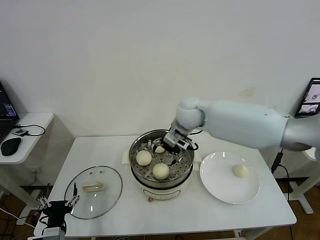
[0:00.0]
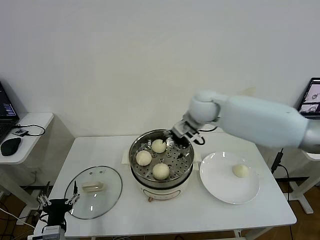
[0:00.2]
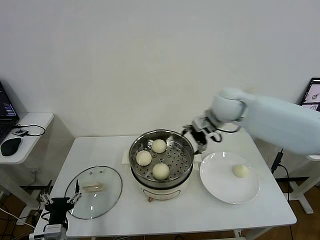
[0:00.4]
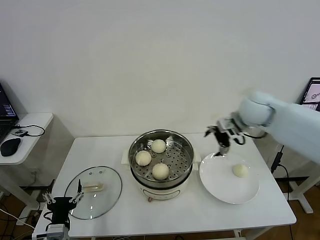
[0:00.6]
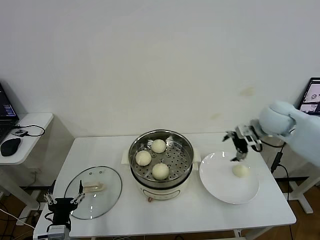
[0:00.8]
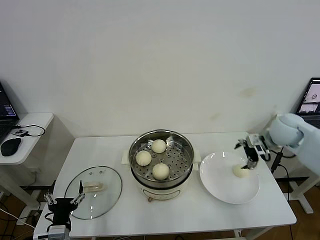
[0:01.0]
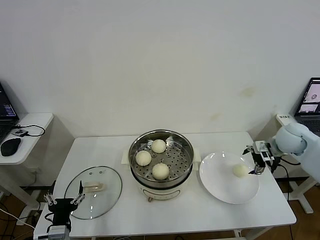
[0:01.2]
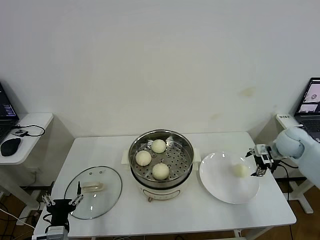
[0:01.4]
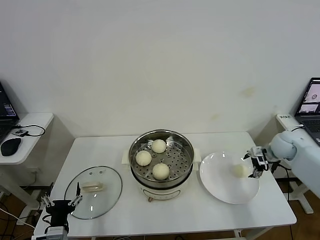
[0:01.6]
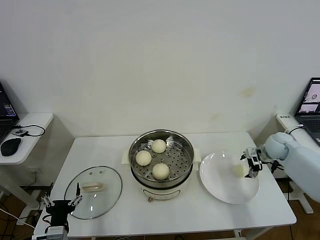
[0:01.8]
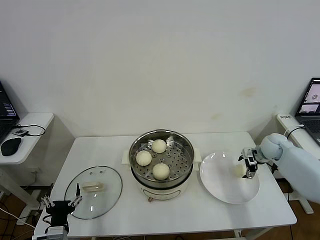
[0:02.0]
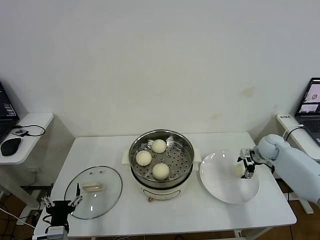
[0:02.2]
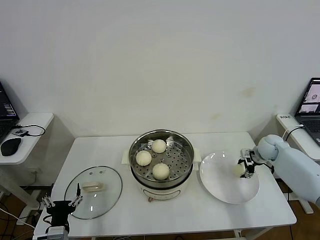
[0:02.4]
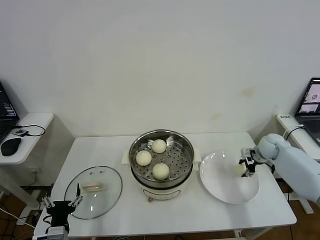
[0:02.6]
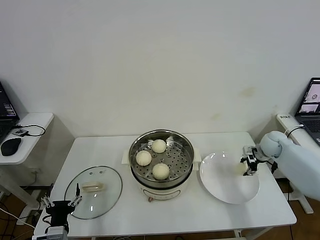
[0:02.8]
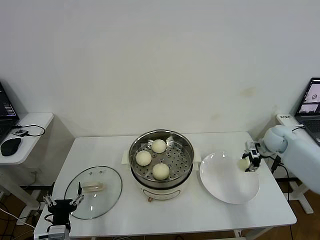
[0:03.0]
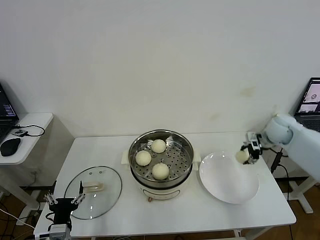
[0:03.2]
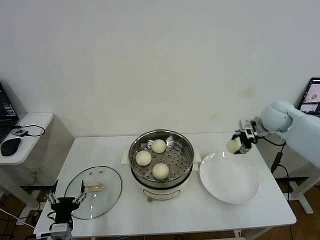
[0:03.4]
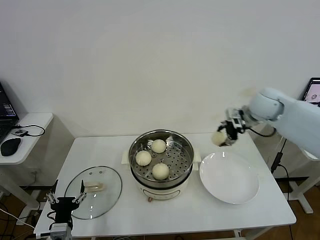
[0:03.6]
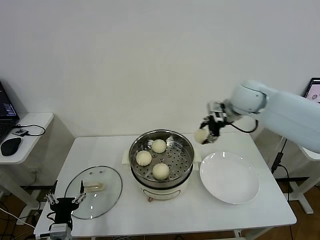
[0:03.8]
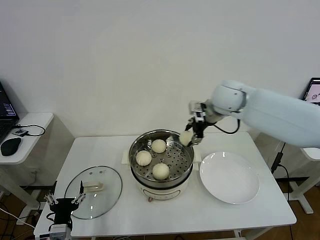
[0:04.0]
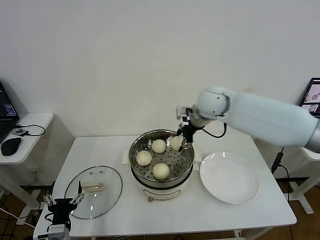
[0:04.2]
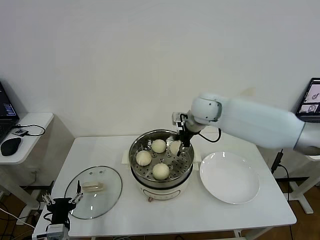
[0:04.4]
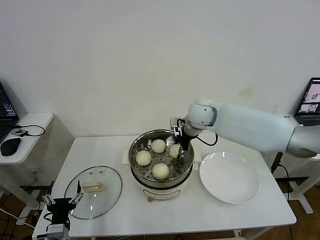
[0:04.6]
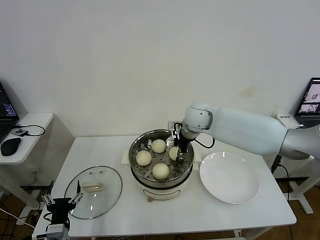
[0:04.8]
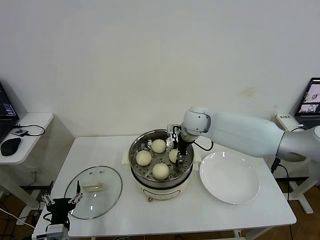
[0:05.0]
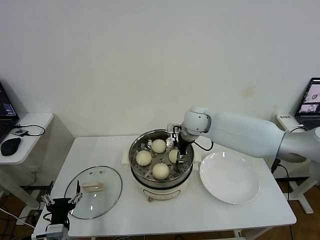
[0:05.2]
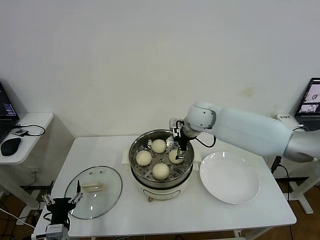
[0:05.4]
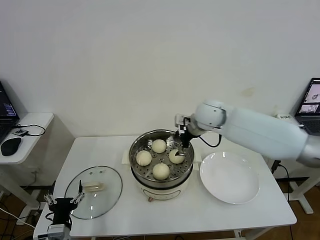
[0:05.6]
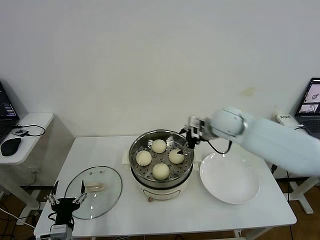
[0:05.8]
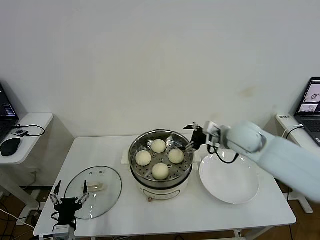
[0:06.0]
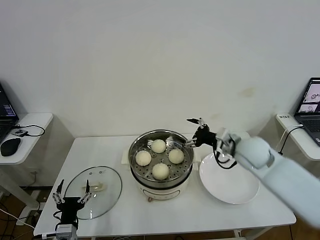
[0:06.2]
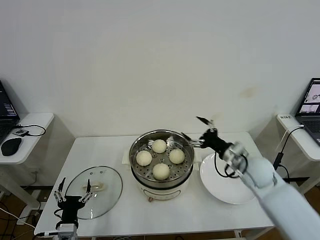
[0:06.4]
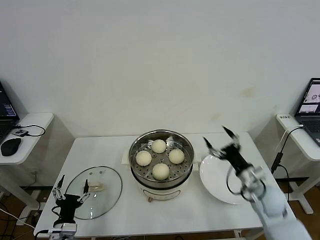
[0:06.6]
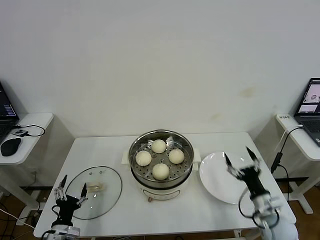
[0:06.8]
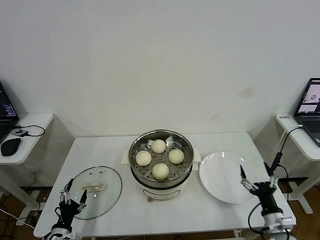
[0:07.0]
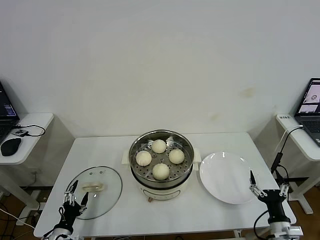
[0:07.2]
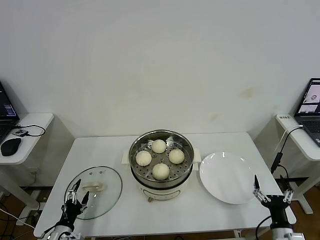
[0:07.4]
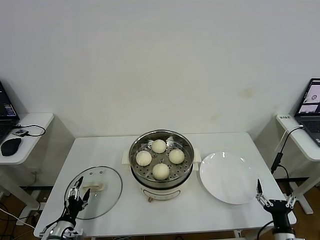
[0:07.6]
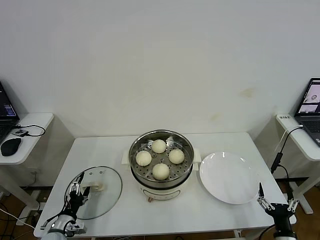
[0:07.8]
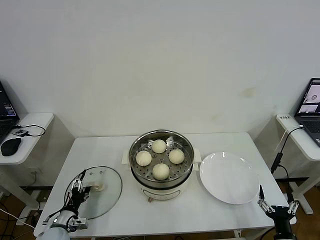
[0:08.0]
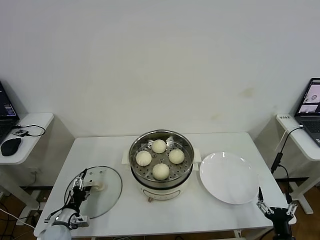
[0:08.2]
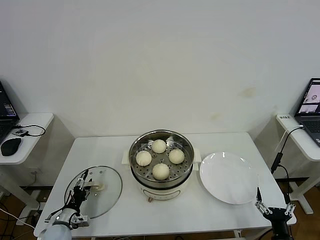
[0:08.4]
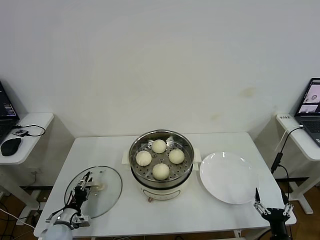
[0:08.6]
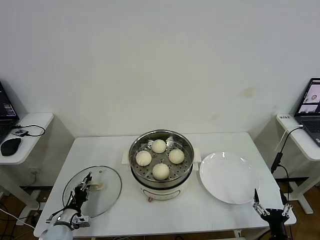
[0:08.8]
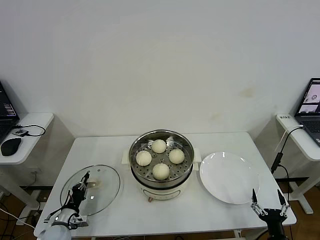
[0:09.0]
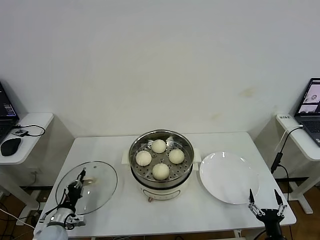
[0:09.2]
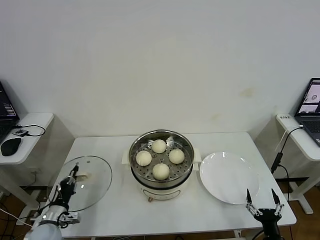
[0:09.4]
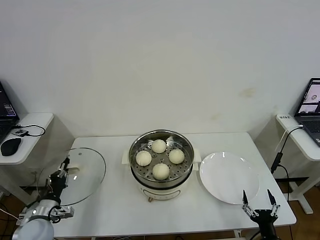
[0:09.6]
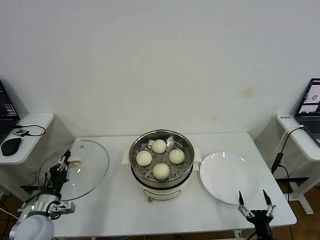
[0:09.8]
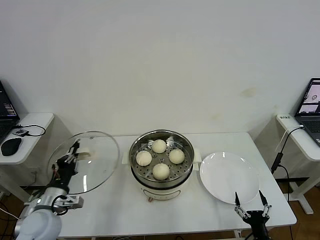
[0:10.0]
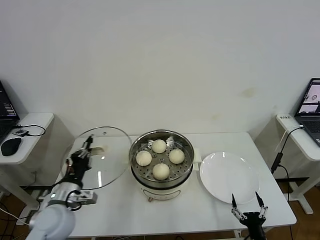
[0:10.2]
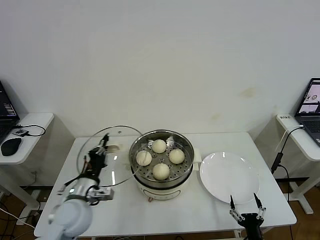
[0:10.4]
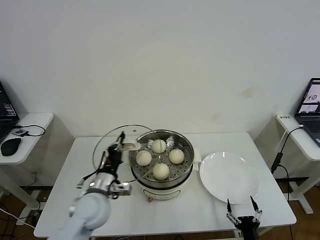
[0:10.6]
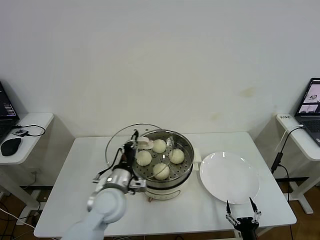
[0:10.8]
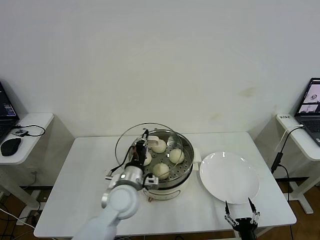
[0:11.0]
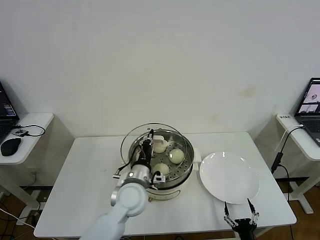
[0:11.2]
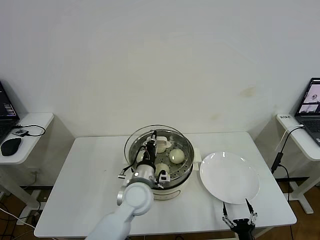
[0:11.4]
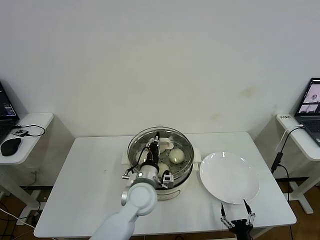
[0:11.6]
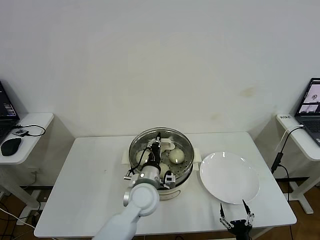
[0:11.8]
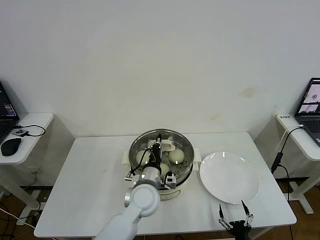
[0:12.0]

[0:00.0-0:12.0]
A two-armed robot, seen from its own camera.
Step, 0:00.0 to 0:02.4: Grasp the baozi in the plate with right gripper.
Step, 0:02.6 to 0:05.2: Place the baozi on the steamer with right gripper.
Step, 0:05.4 to 0:09.0: Grasp the pot lid with left gripper.
0:00.0 to 0:01.6: The right gripper moves to the right, roughly 35 cm.
0:01.6 to 0:03.0: The right gripper closes its fingers.
0:03.0 to 0:04.4: The right gripper heads to the left and upward, covering about 30 cm.
0:04.4 to 0:06.0: The right gripper heads to the right and backward, covering roughly 15 cm, and opens its fingers.
0:06.0 to 0:07.6: The left gripper shifts approximately 10 cm to the left and downward. Meanwhile the right gripper moves backward, downward and to the right, about 40 cm.
0:07.6 to 0:09.0: The left gripper moves forward, some 5 cm, and closes.
0:09.0 to 0:10.4: The right gripper goes about 5 cm to the left, while the left gripper travels upward and to the right by approximately 25 cm.
0:10.4 to 0:12.0: The left gripper is displaced to the right by some 20 cm.

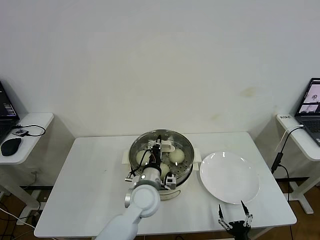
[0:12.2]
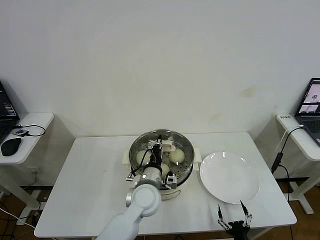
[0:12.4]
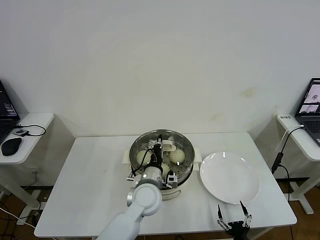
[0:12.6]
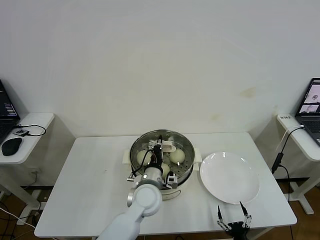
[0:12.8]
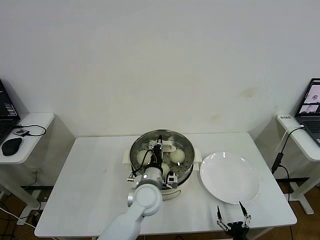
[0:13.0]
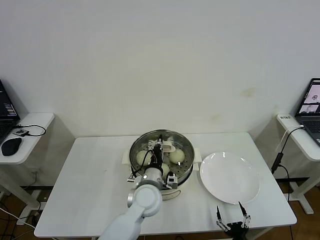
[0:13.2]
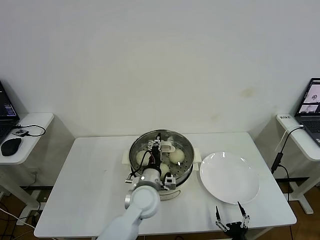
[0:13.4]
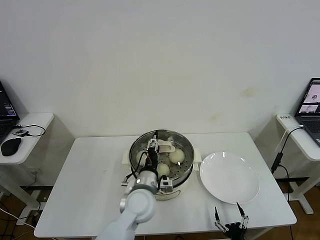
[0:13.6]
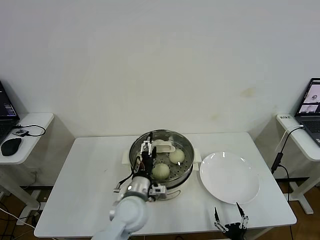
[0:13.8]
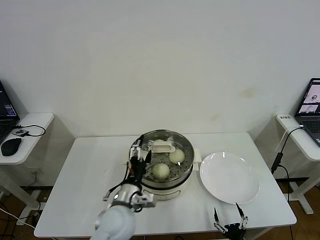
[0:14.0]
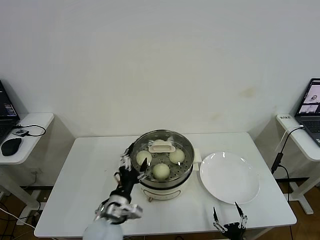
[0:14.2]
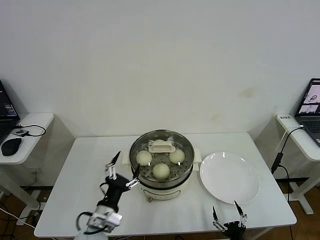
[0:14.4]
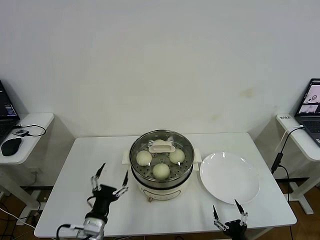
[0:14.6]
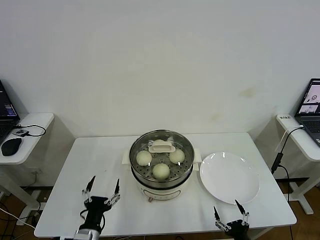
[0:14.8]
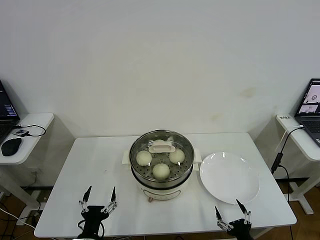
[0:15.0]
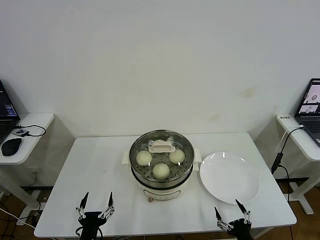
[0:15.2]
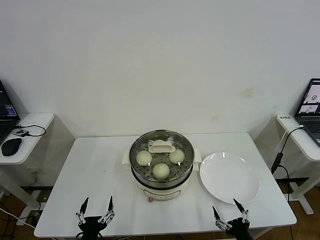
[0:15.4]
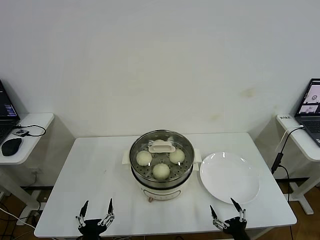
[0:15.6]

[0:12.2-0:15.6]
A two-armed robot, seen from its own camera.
0:12.2 to 0:13.8: The left gripper opens its fingers.
0:13.8 to 0:15.6: The left gripper goes roughly 25 cm backward, to the left and downward. The right gripper travels upward by some 10 cm.
